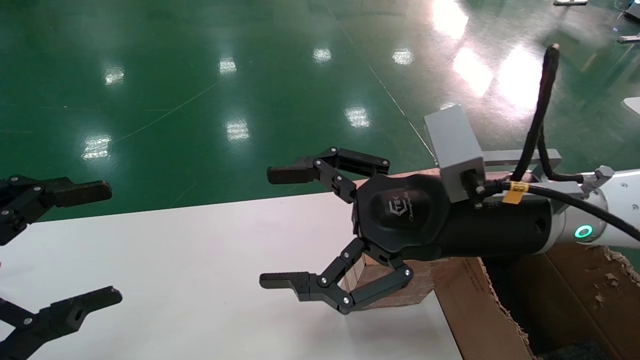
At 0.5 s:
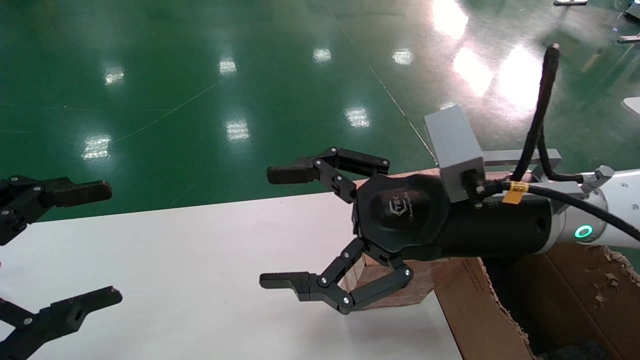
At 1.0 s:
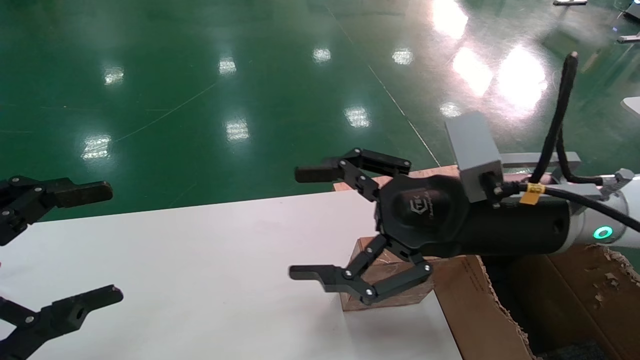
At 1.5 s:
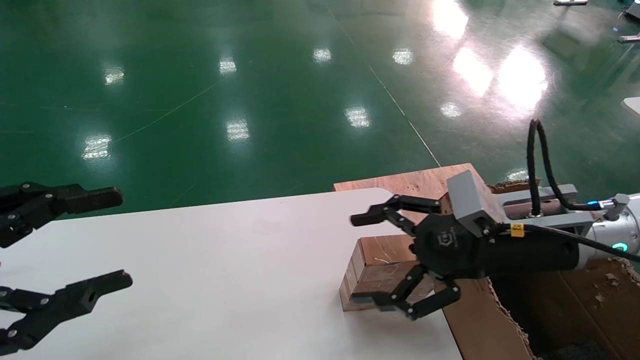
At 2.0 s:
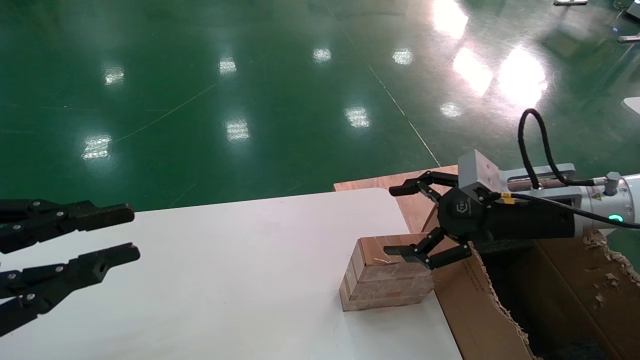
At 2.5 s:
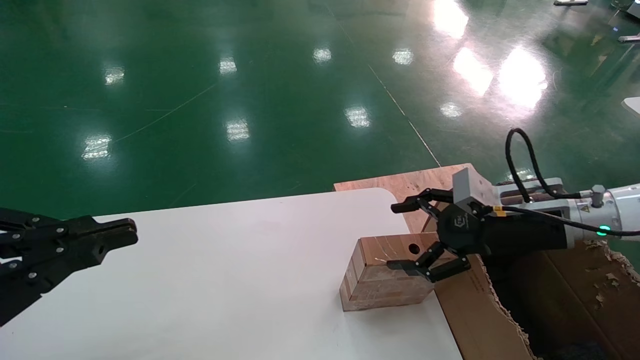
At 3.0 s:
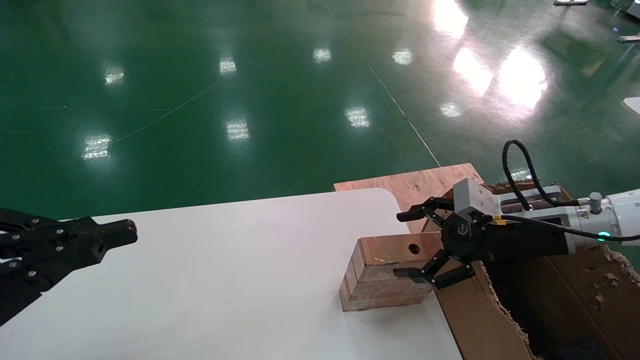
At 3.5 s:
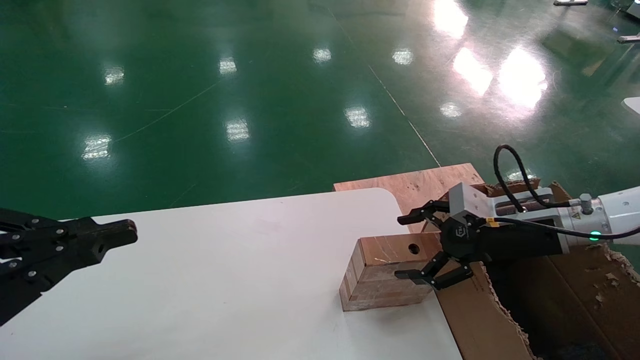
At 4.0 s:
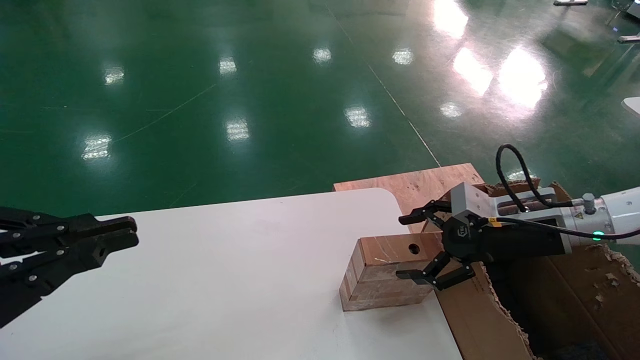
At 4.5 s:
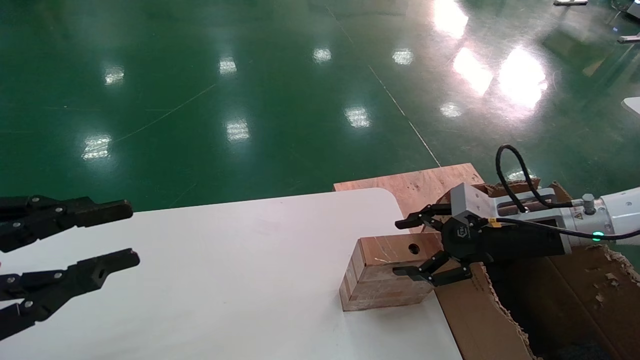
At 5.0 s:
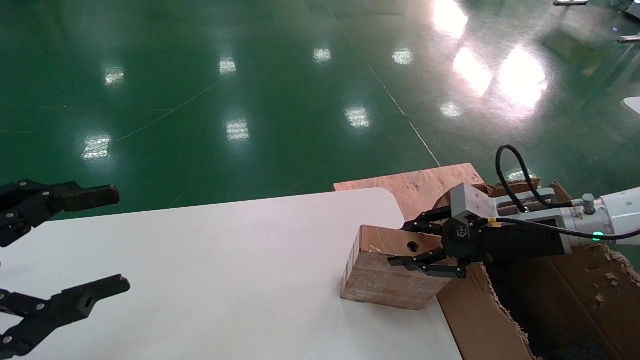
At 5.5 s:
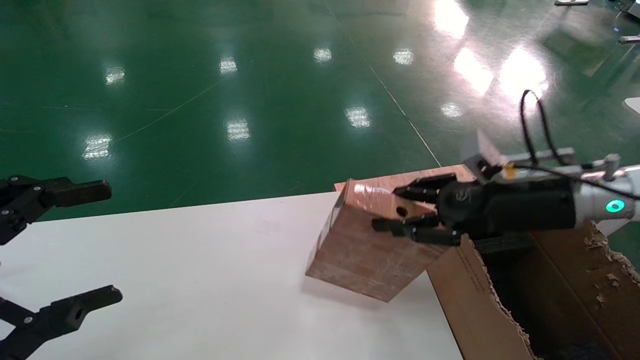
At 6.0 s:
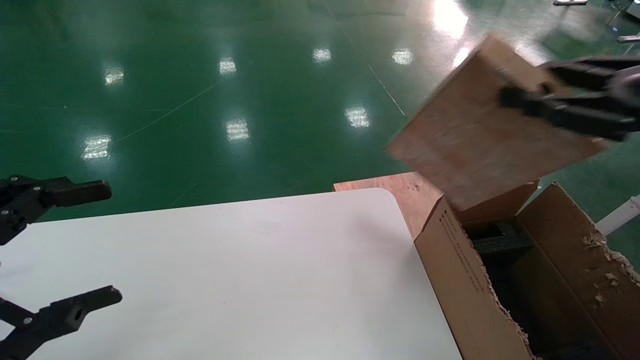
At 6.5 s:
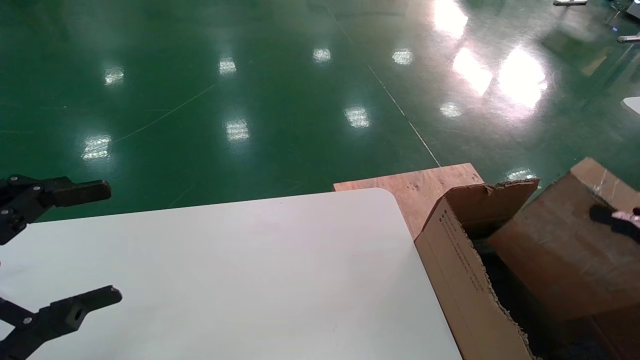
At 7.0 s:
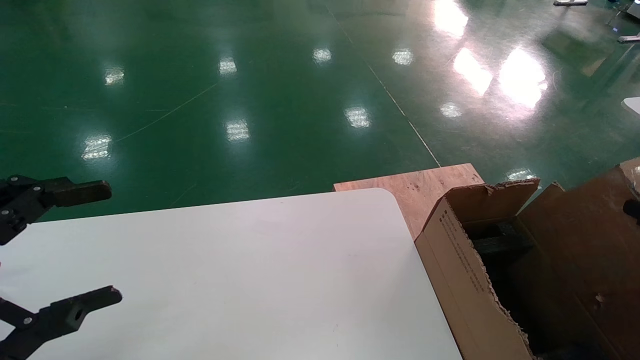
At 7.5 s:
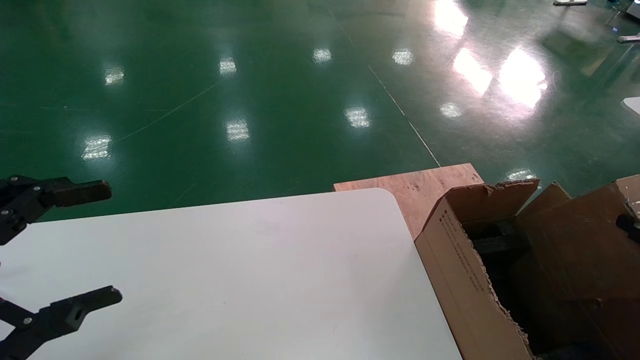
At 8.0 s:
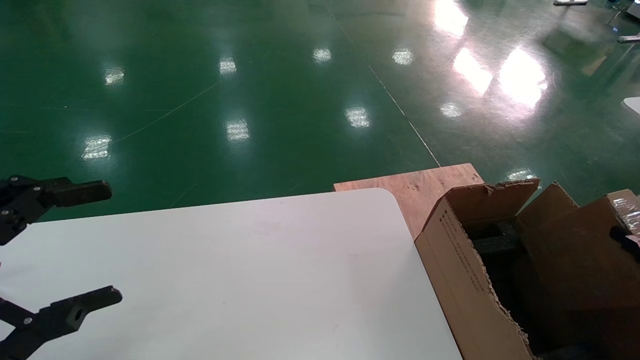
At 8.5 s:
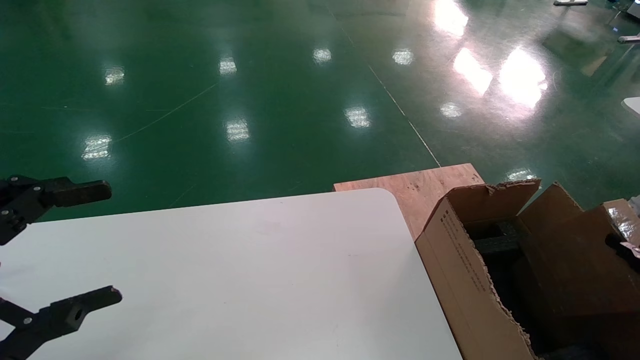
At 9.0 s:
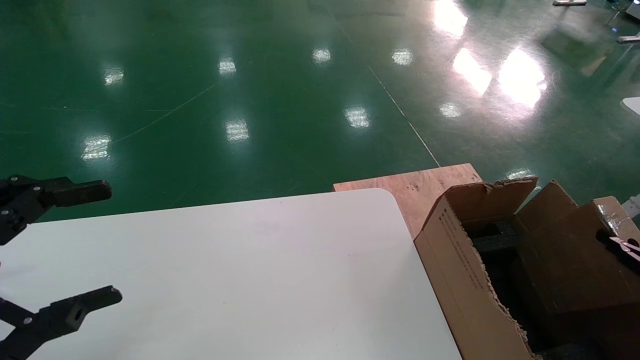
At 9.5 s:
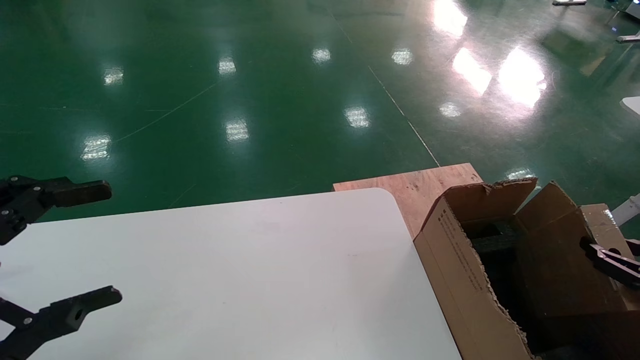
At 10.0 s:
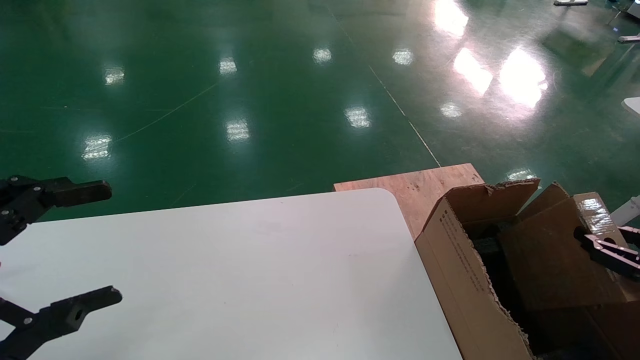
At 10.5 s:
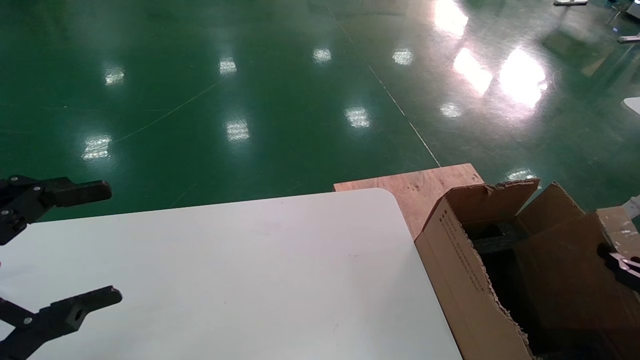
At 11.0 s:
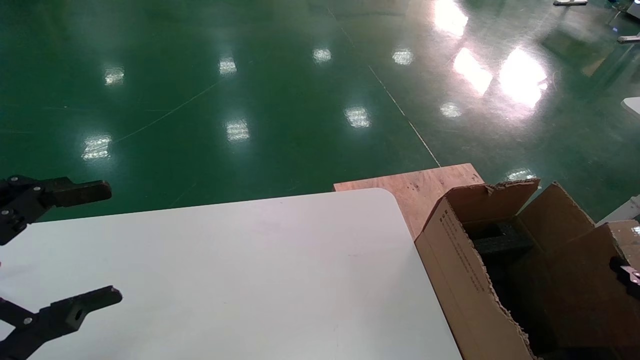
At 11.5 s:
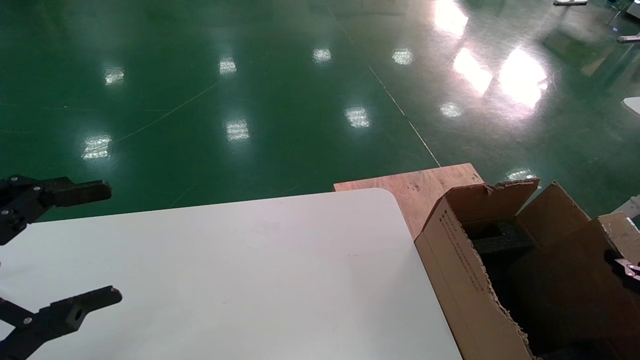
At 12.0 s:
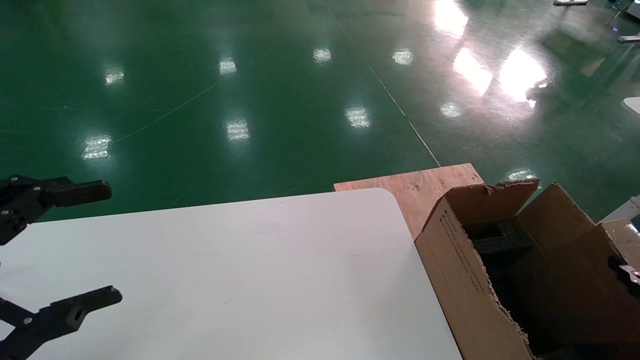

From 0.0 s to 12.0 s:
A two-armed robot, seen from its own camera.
Task of the whole recording: put the box on the table into the big box.
Step, from 1.5 s to 5.0 s: Pick up the mouse and the power cord paper box.
From 0.0 s to 2.0 s: The right gripper goes approximately 15 cm to the right and forward. The left gripper closes up.
From 2.0 s to 4.0 s: The right gripper shifts by some 5 cm; the left gripper closes.
From 4.0 s to 6.0 s: The left gripper opens its fingers, while the right gripper travels upward and backward by roughly 20 cm, and closes up.
From 6.0 s to 8.0 s: The right gripper travels downward and to the right by approximately 25 cm.
From 8.0 s to 12.0 s: There are only small adjustments of the grippers.

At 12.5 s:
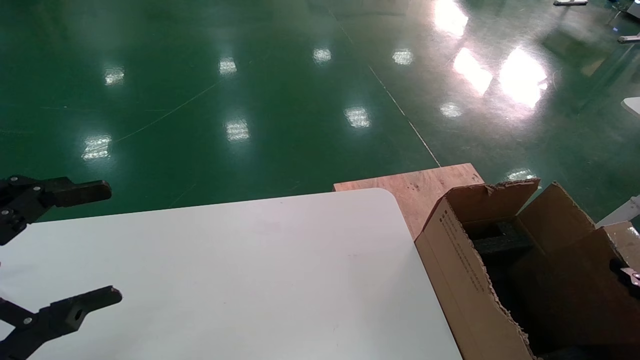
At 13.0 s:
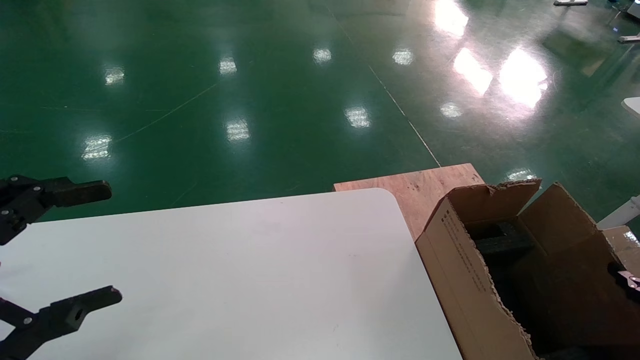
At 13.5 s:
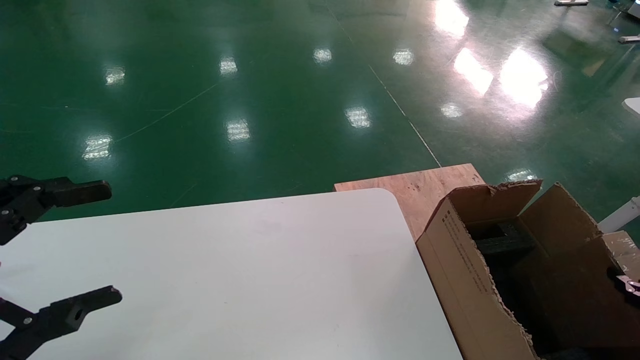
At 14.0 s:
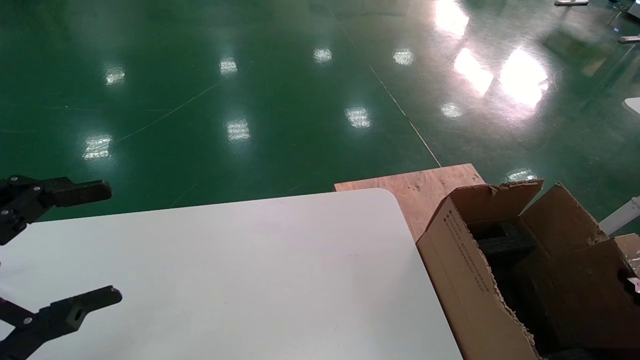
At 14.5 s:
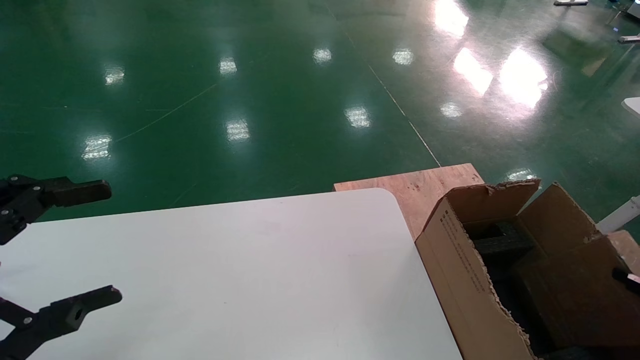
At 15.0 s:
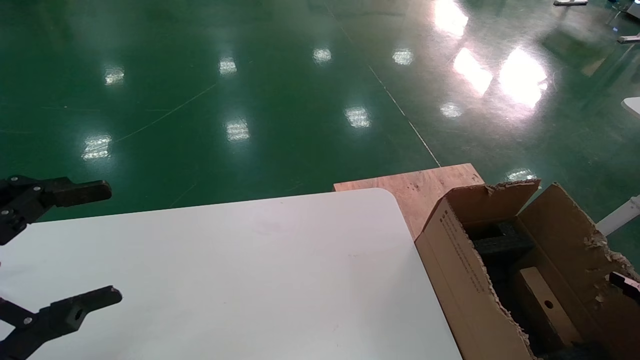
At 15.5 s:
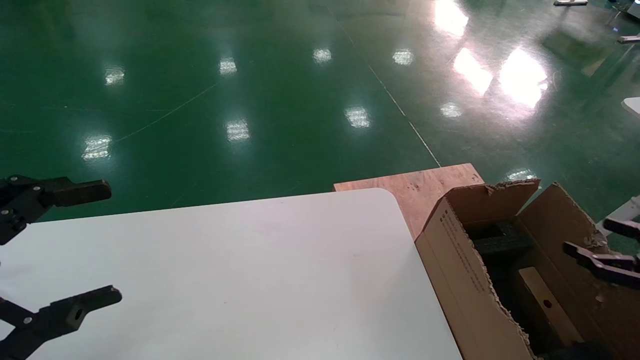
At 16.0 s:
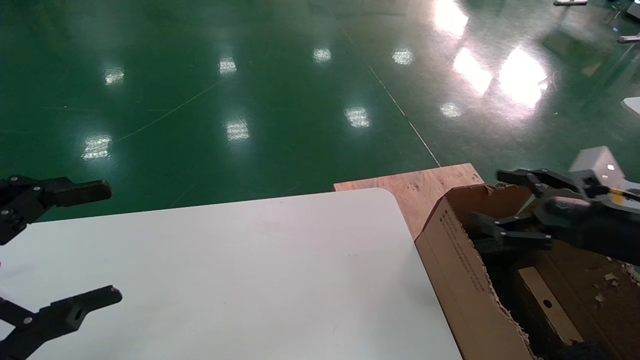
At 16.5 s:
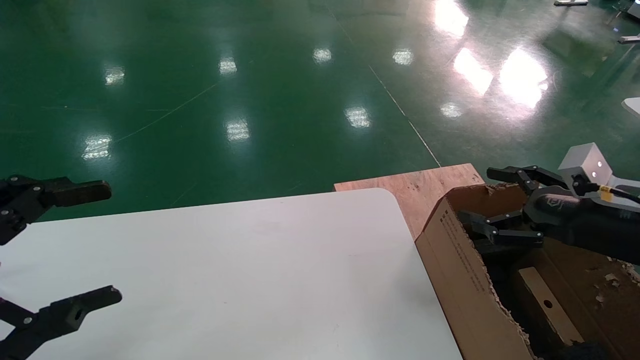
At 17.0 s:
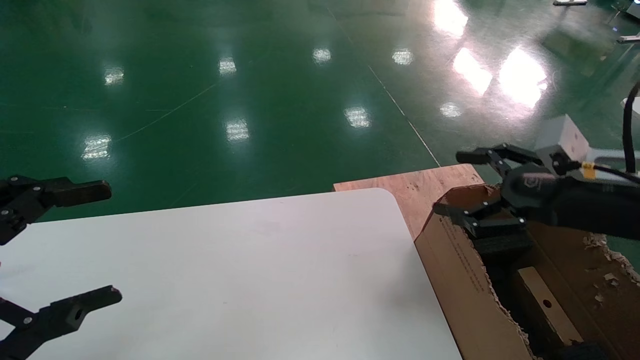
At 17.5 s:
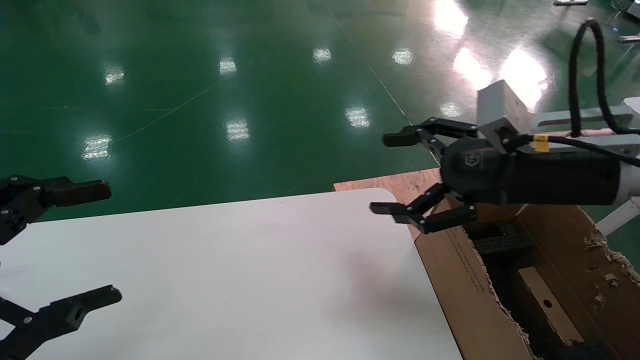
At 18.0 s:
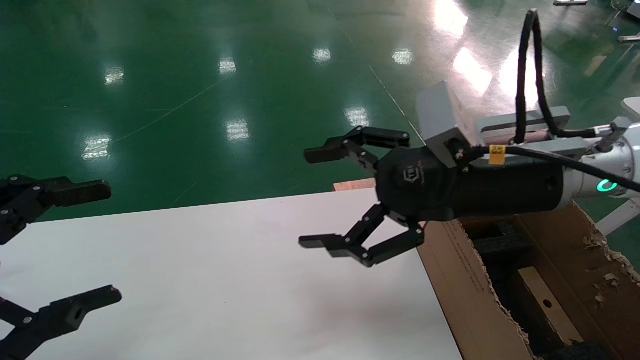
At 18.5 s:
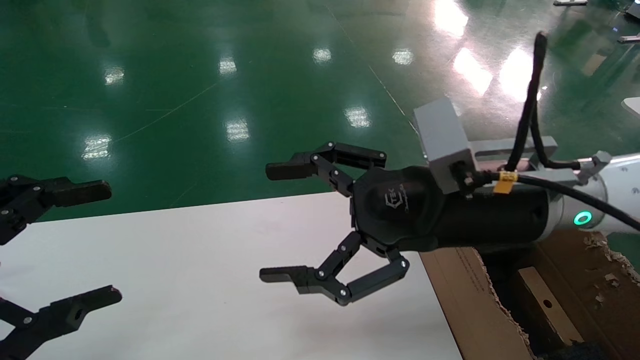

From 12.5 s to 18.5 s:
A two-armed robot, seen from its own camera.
Task of the whole recording: put the box on the table into the big box.
From 14.5 s to 16.5 s: The right gripper is displaced to the left, upward and forward by approximately 25 cm, and opens up.
From 16.5 s to 18.5 s: The right gripper goes some 20 cm to the left.
